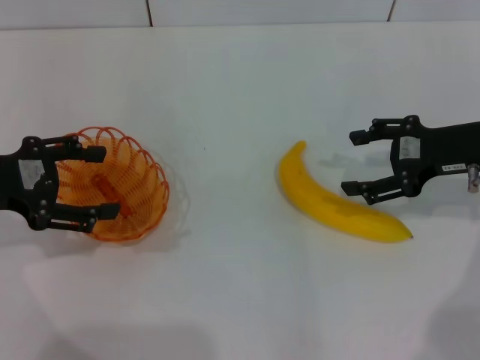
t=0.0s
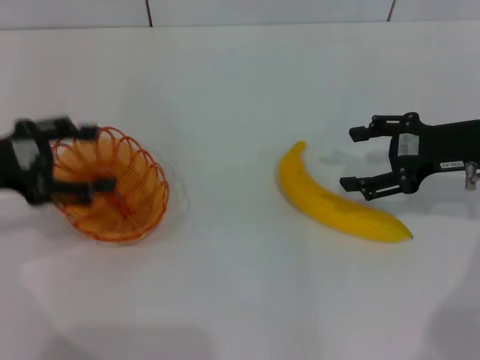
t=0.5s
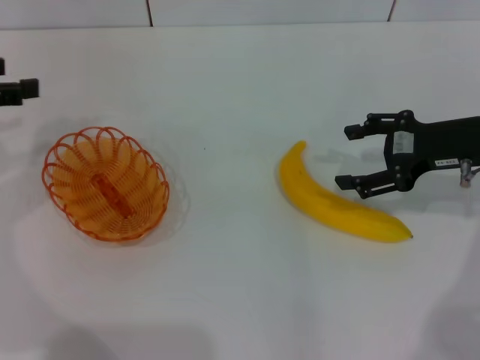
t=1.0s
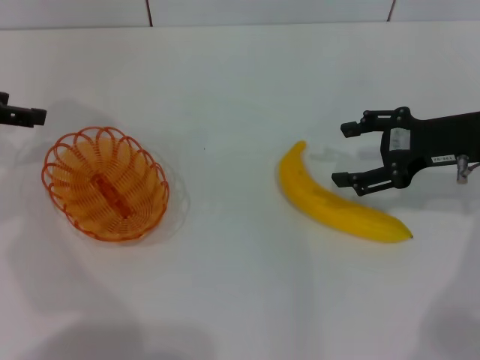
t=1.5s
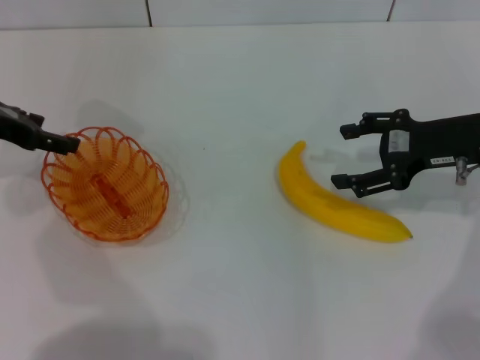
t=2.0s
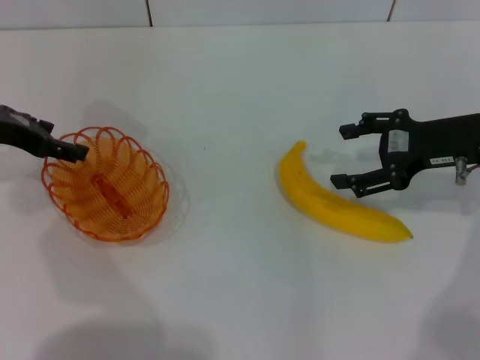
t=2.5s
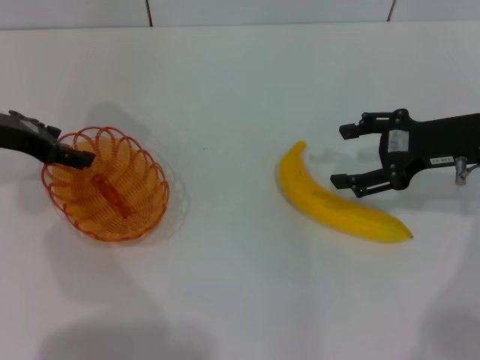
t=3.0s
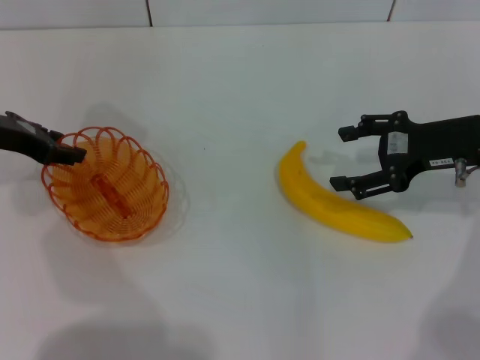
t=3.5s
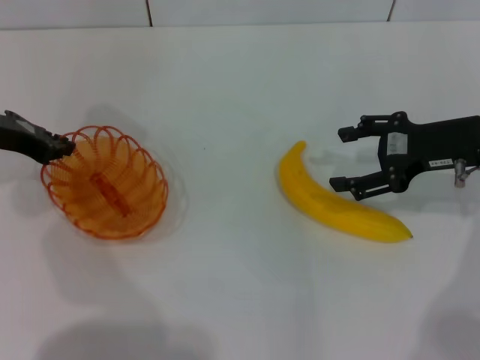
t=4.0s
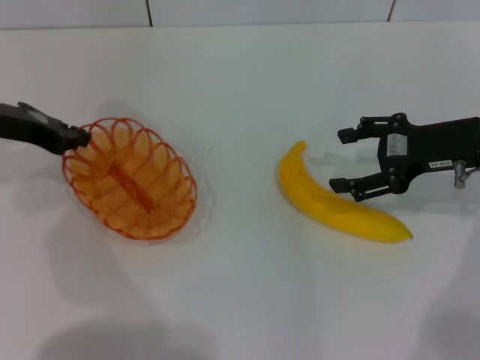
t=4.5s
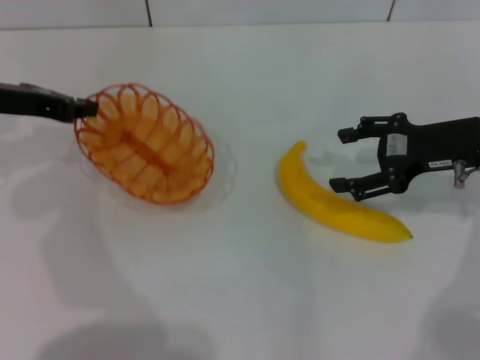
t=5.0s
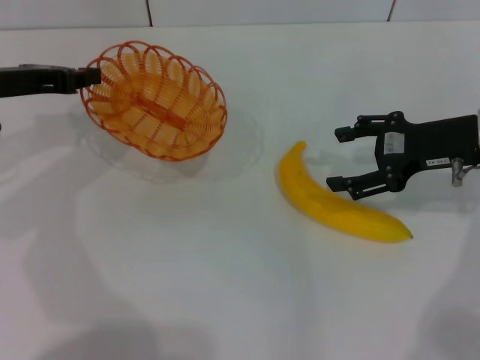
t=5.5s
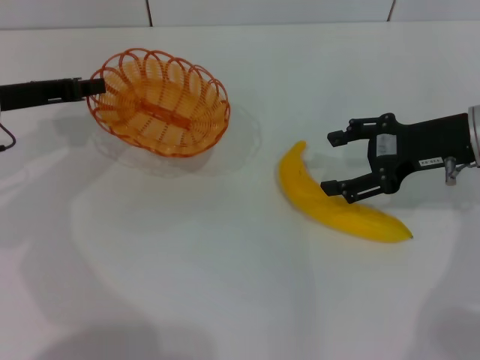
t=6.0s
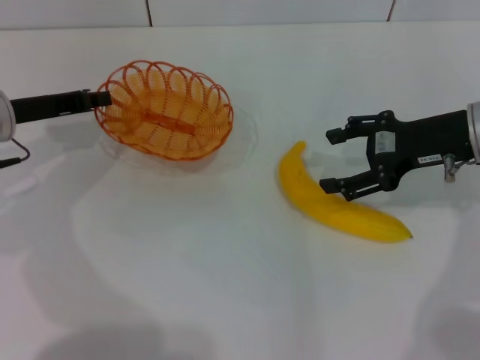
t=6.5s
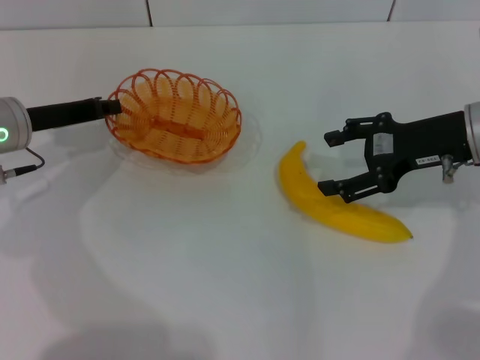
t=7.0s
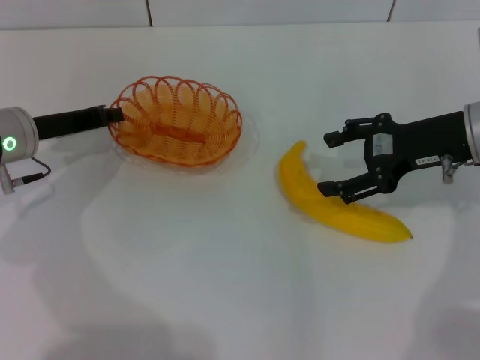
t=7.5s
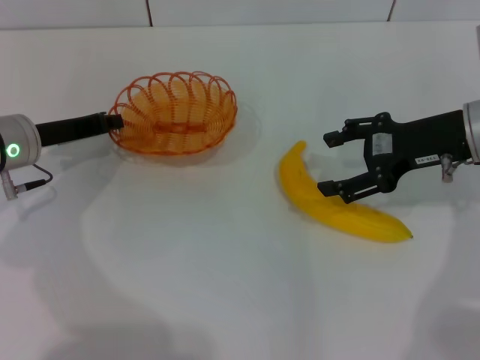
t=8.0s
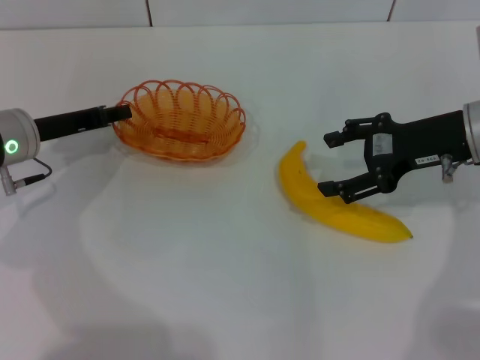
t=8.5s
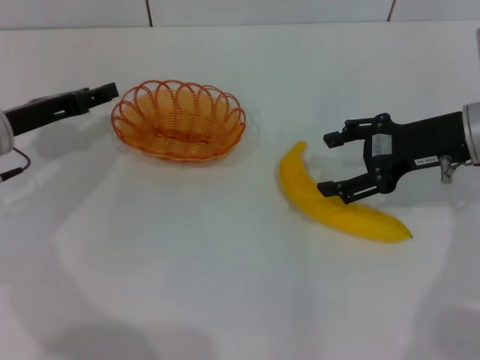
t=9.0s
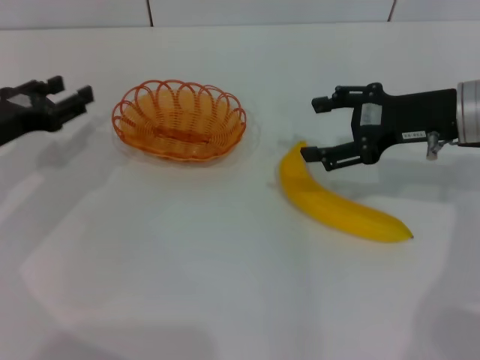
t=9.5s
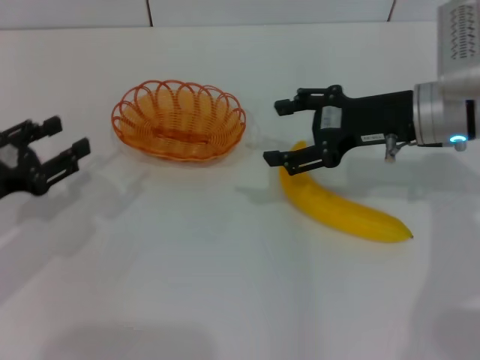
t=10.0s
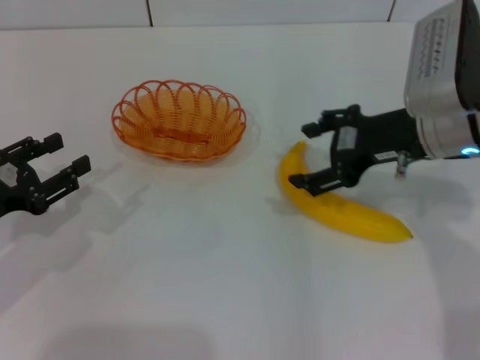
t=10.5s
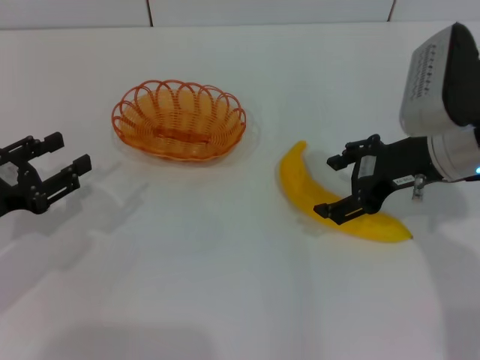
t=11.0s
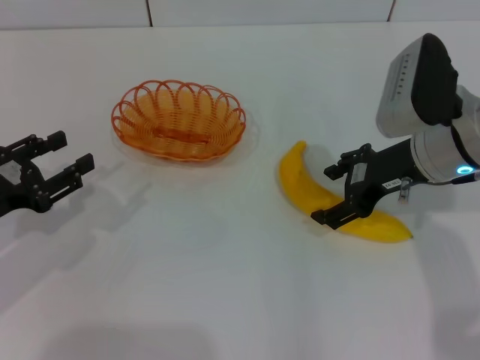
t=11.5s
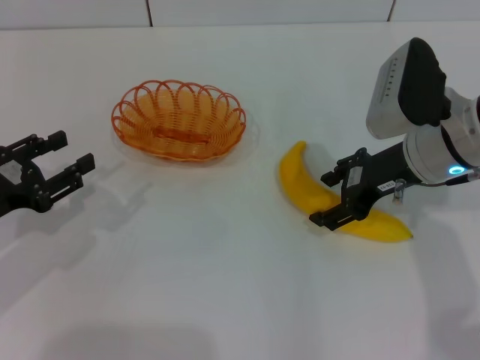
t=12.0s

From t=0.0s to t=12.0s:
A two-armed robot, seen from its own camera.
Step, from t=0.0s to t=5.0s: Pick up the basket with the left gripper.
Step, from t=5.5s to t=9.0s: Place the basket in the center of view with the left gripper.
From t=0.0s to t=2.0s: The left gripper goes approximately 10 cm forward.
From t=2.0s to t=4.0s: The left gripper closes its fingers.
From t=6.0s to t=8.0s: The left gripper goes about 5 cm downward.
From t=8.0s to t=10.0s: The left gripper shifts approximately 10 cm backward and to the left, and opens its fingers.

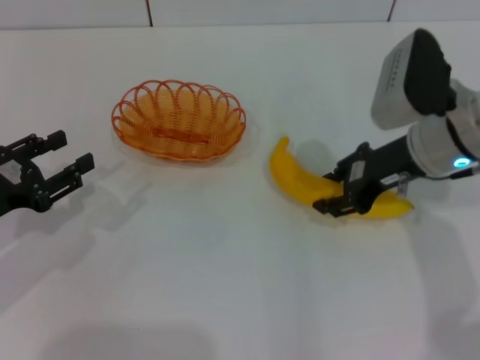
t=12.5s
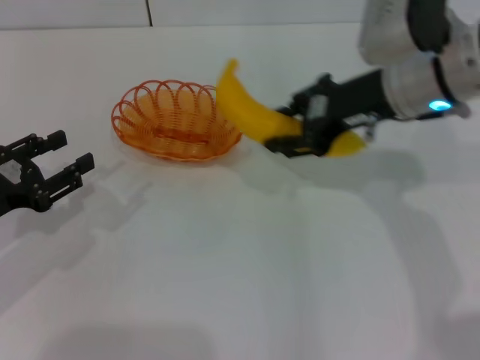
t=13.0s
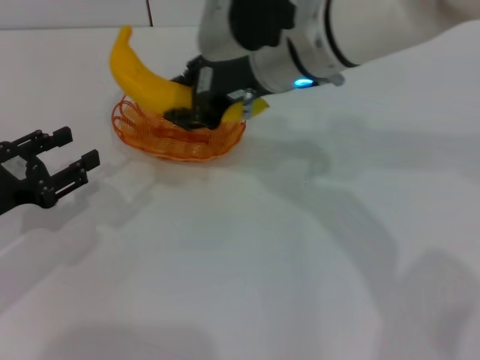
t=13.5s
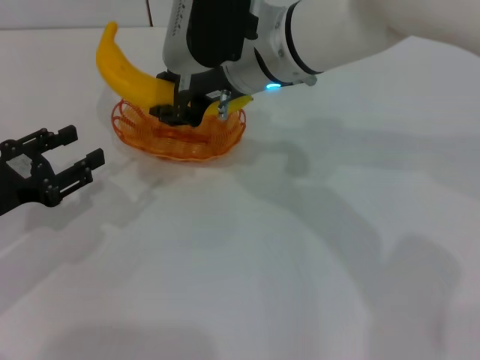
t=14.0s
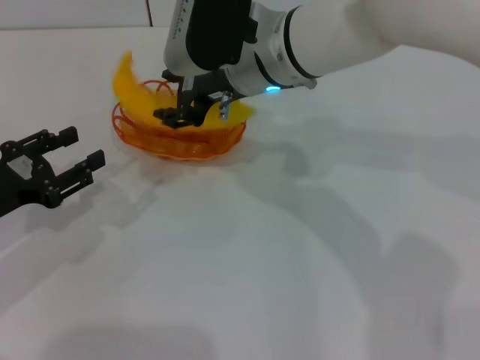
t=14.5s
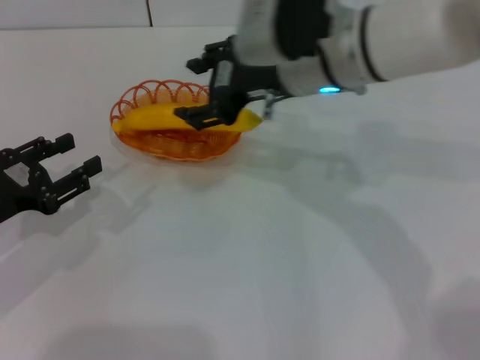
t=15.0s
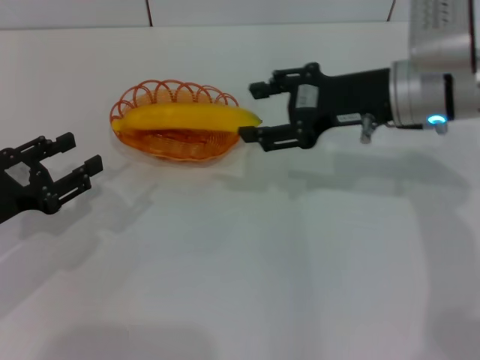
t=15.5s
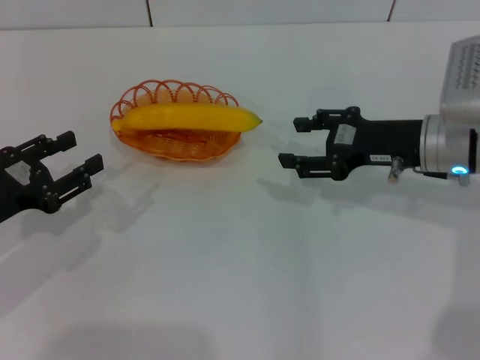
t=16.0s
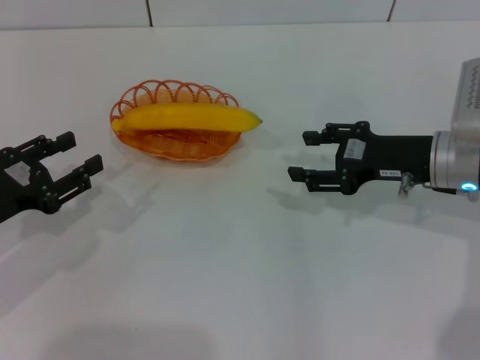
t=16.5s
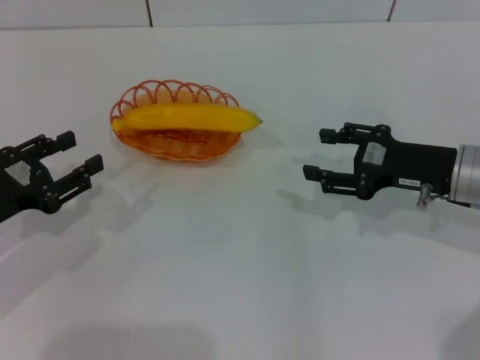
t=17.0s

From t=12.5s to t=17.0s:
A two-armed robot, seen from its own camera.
Step, from t=13.0s to t=15.5s: Place the banana into the basket with the right gripper.
From t=12.5s to t=14.5s: The right gripper moves to the left, some 15 cm.
From t=14.5s to t=17.0s: The right gripper heads to the right, downward and backward, covering some 25 cm, and opens up.
